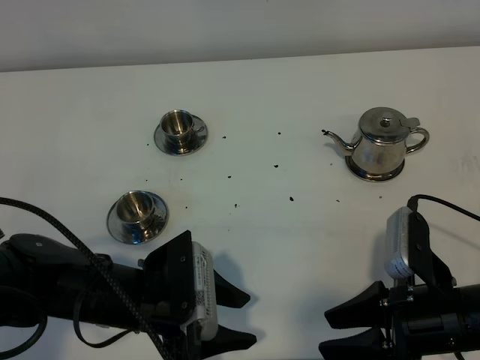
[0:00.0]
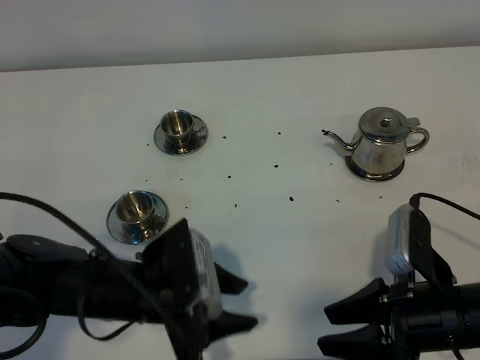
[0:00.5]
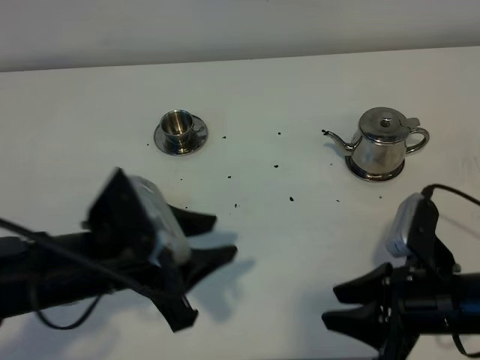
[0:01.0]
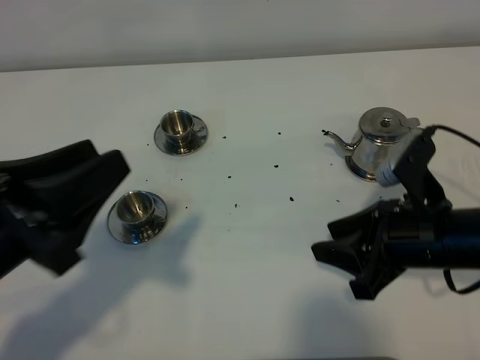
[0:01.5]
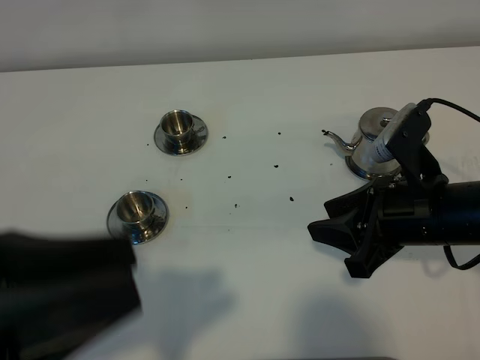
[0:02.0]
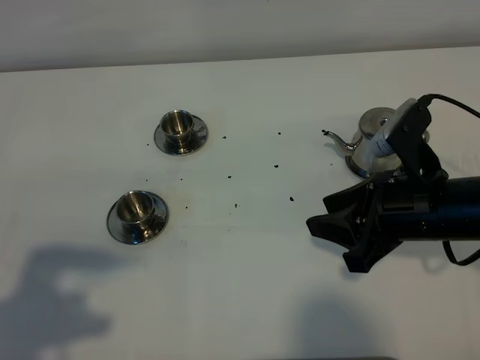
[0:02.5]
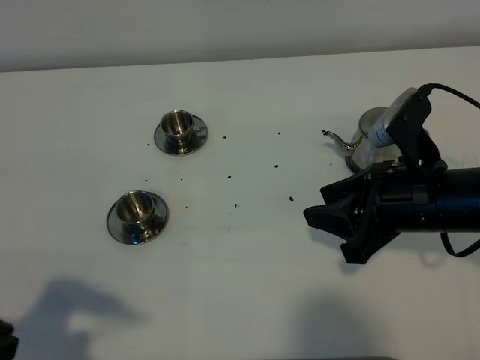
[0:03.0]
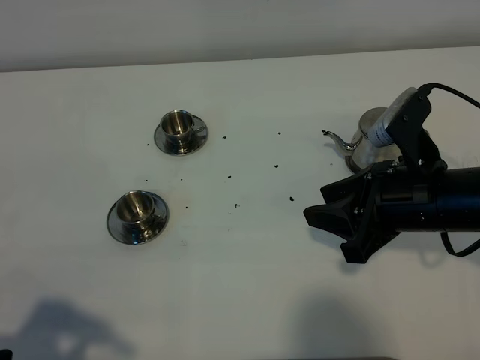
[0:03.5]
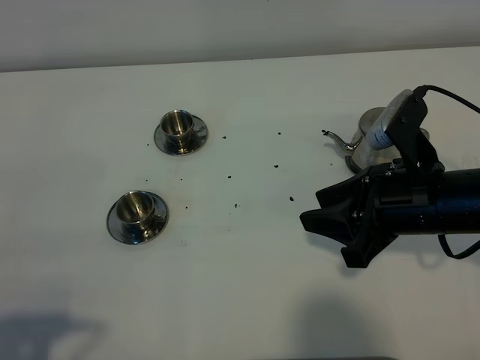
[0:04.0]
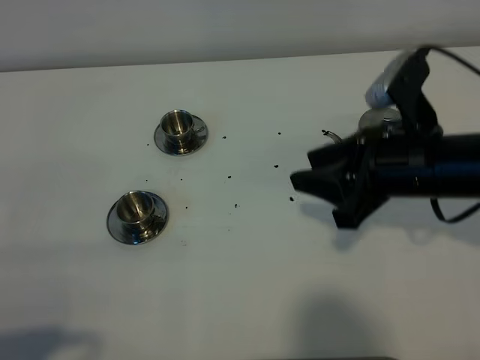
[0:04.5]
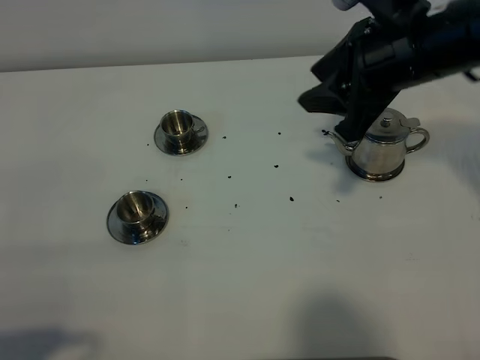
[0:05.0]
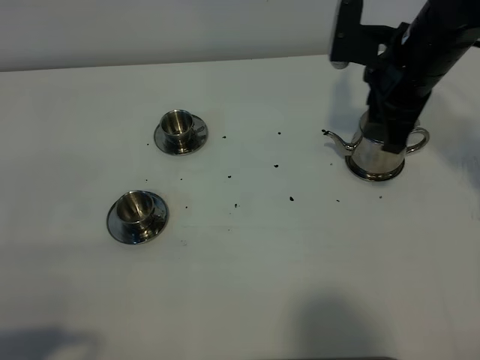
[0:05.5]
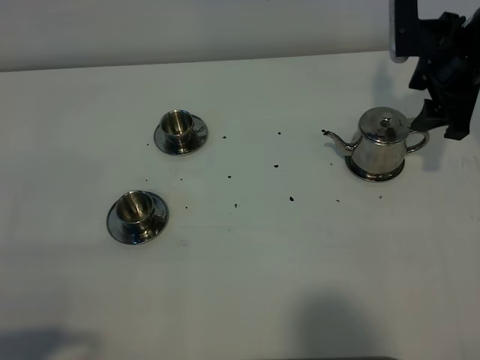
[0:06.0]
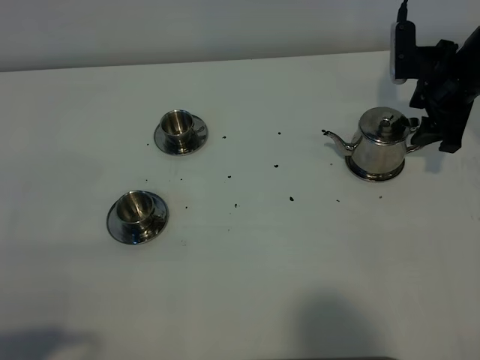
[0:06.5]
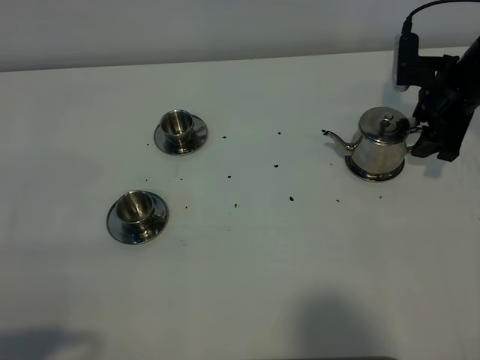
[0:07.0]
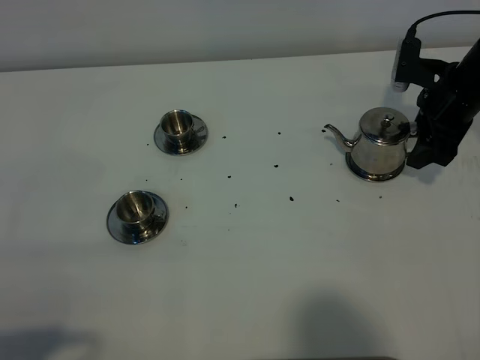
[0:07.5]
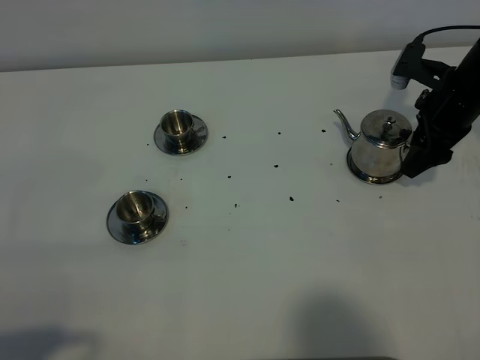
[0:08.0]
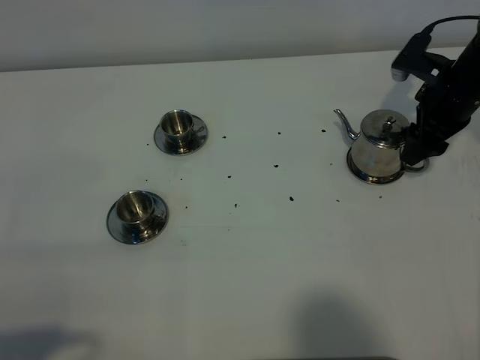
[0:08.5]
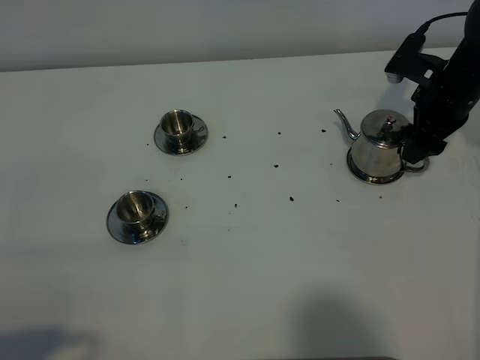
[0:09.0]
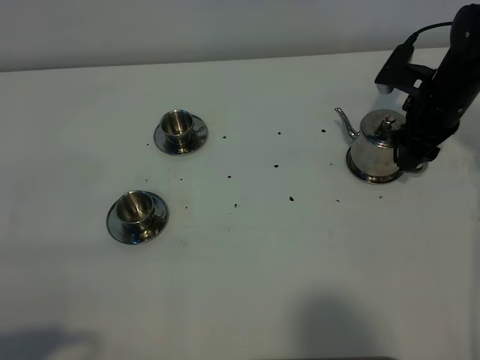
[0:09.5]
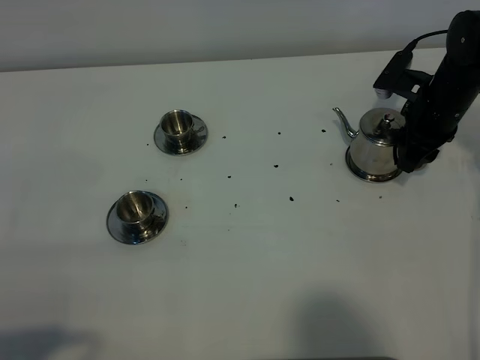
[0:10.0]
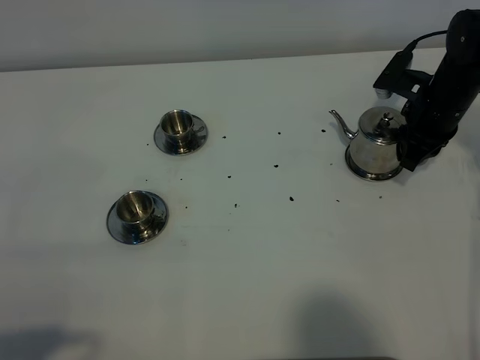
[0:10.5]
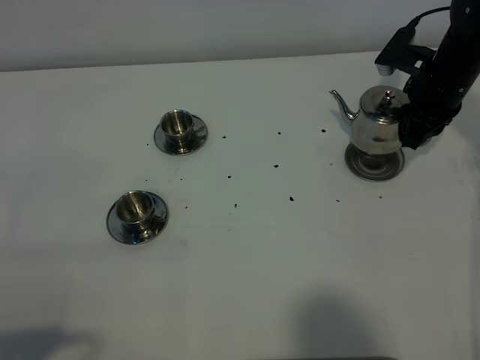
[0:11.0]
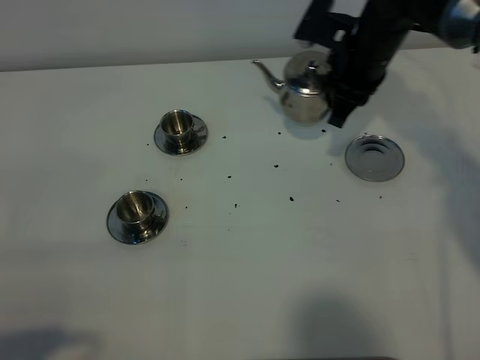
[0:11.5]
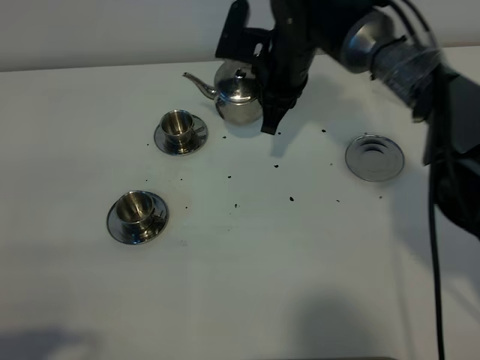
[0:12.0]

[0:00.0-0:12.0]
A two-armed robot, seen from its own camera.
Task of the whole recording: grasp the stainless steel teapot and pour the tea into the two stainless steel teacups one by one, put the stainless steel teapot back in its original place.
Step, 0:00.0 to 0:10.5: Pick up the teapot with the right gripper.
0:00.0 to 0:02.0: The right gripper goes approximately 10 cm forward and upward. Meanwhile the left gripper heads upward and backward, covering about 25 cm.
0:02.0 to 0:04.0: The left gripper shifts some 15 cm to the left, downward and backward.
0:04.0 to 0:06.0: The right gripper travels forward and to the right by about 20 cm, and opens.
0:06.0 to 0:08.0: The right gripper shifts roughly 5 cm downward.
0:08.0 to 0:10.0: The right gripper closes up.
0:10.0 to 0:12.0: The right gripper moves to the left, some 20 cm, and closes.

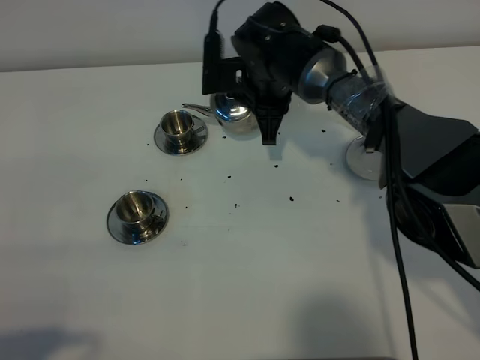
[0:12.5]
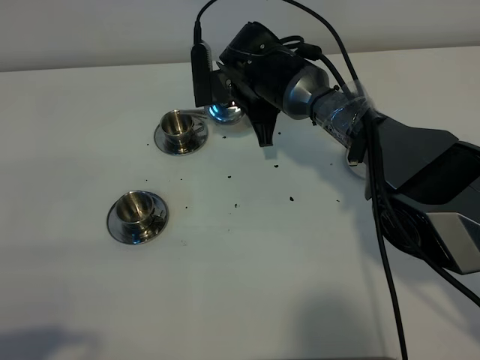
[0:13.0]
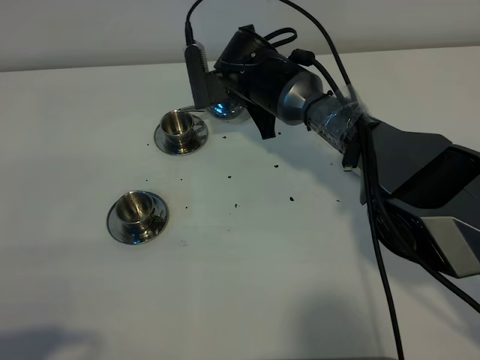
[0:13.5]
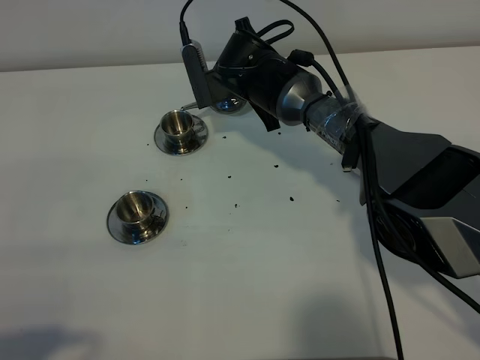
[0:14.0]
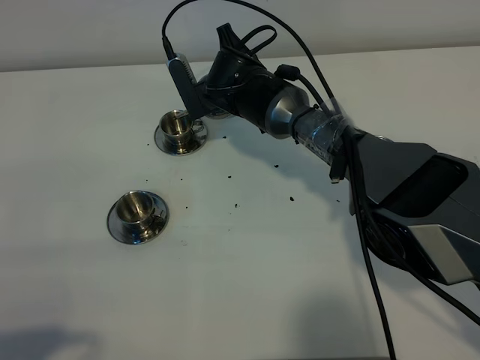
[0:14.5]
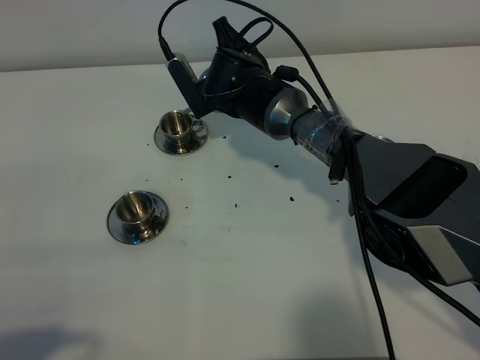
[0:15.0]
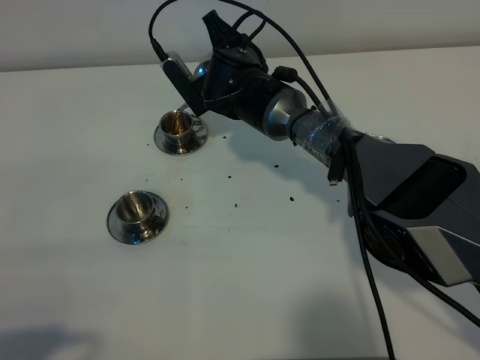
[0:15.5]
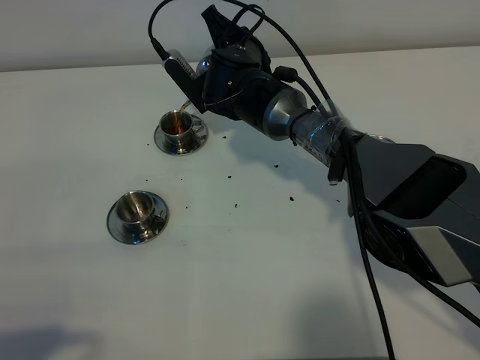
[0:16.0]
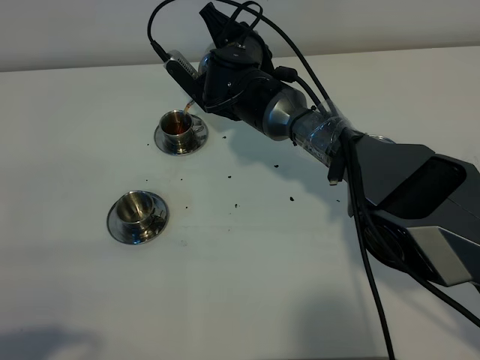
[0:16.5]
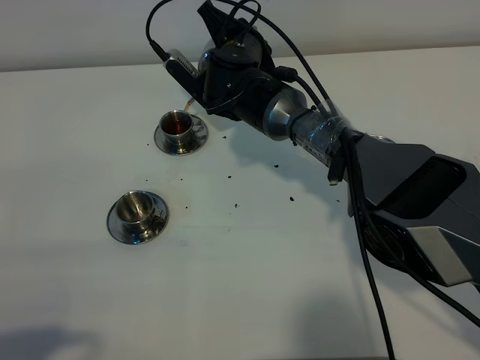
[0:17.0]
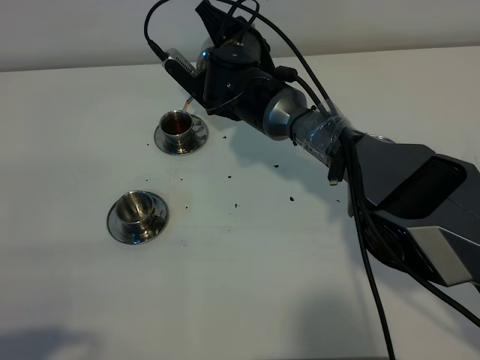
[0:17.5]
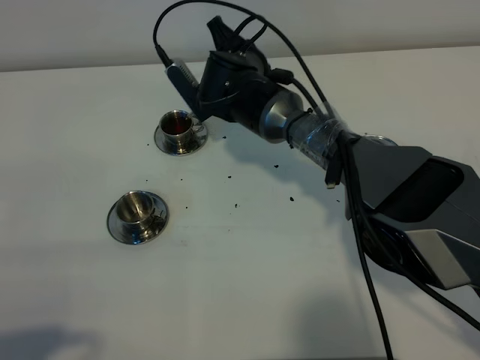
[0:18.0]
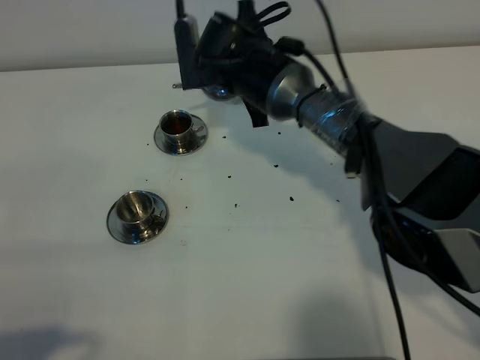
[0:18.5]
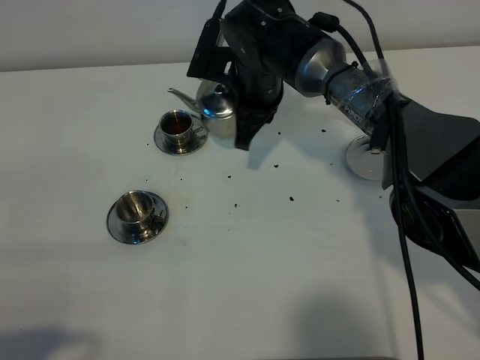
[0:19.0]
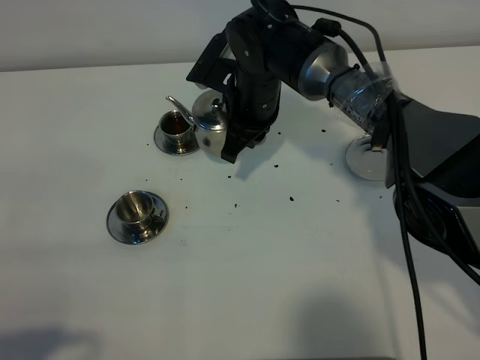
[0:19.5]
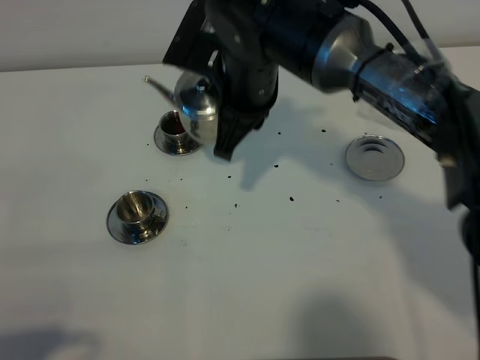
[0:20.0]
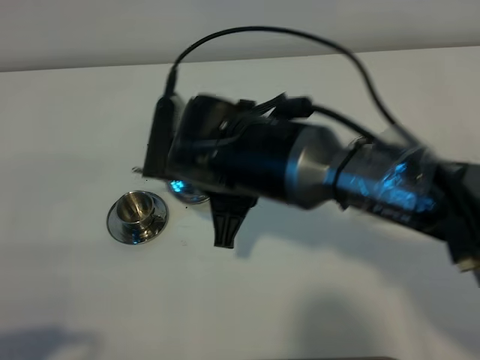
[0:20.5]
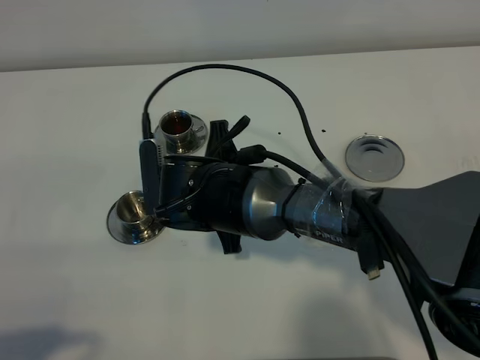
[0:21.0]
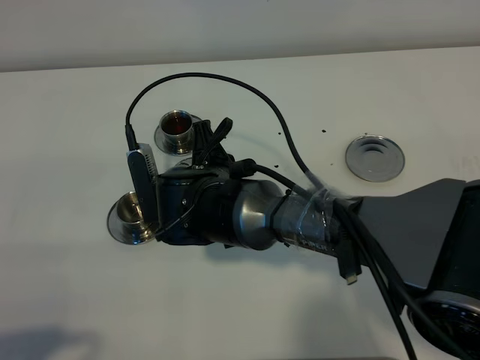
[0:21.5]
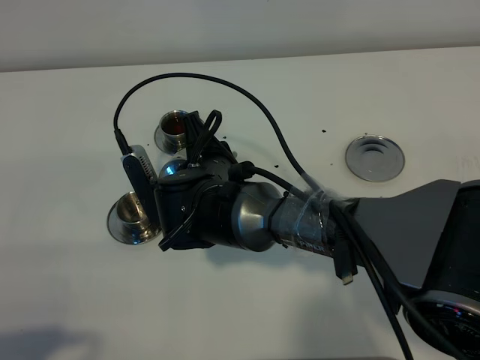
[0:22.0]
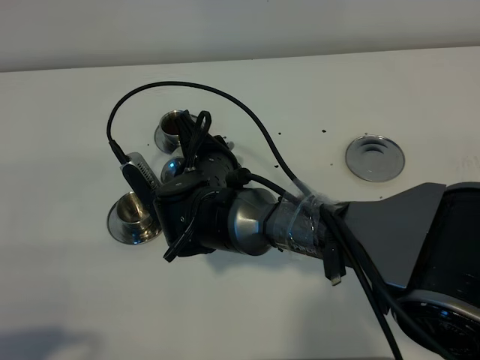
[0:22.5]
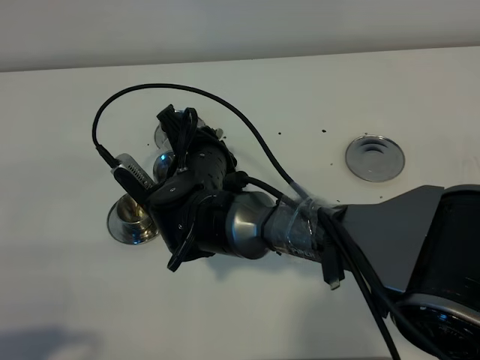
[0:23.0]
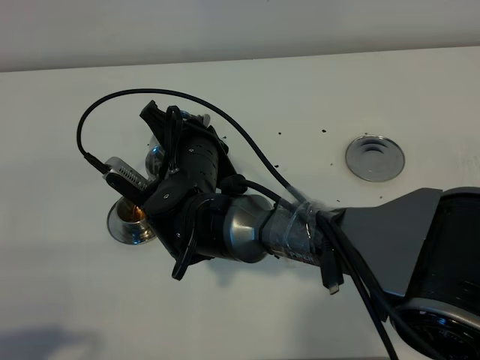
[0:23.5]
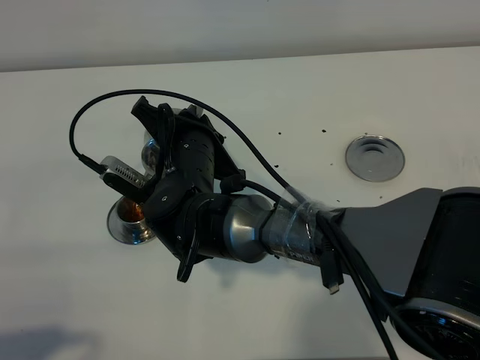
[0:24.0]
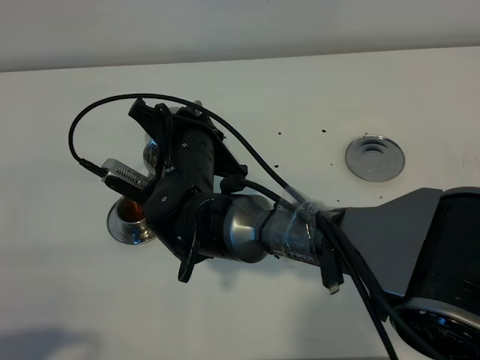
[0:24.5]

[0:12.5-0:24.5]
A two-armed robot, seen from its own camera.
Task of the whole recording: grasp the stainless steel teapot and pour the tea into the two stainless steel teacups one by one, put the stainless steel teapot back in its original place.
0:16.5 to 0:18.5: The right gripper changes place by some 5 cm.
0:18.5 to 0:20.5: The right gripper is displaced backward by approximately 15 cm.
0:20.5 to 0:22.5: The right gripper is displaced downward by about 10 cm.

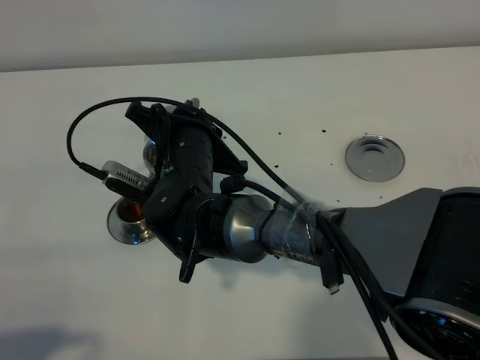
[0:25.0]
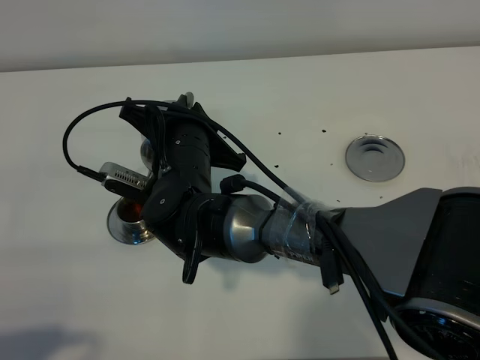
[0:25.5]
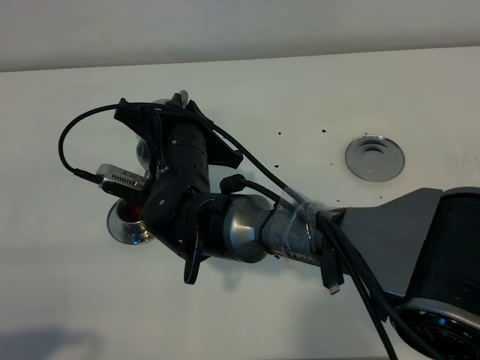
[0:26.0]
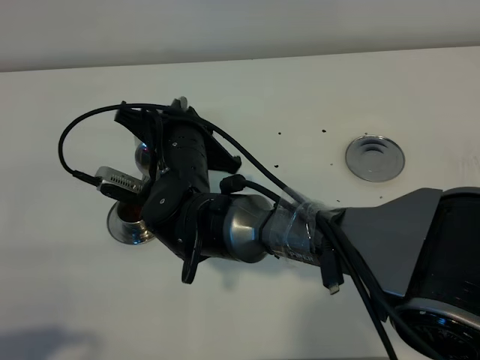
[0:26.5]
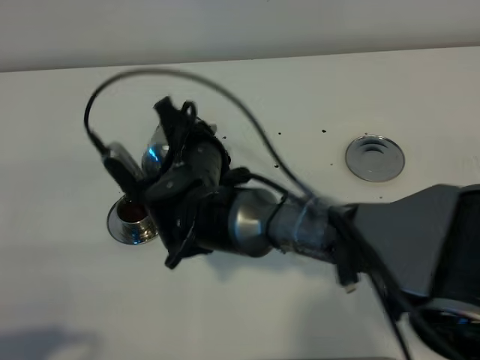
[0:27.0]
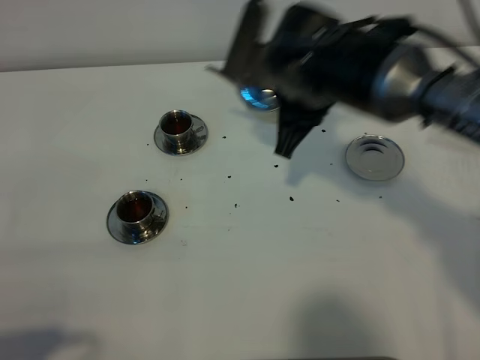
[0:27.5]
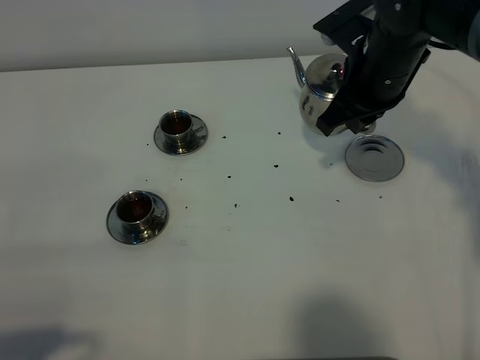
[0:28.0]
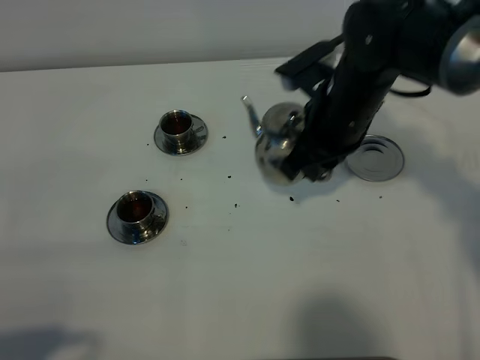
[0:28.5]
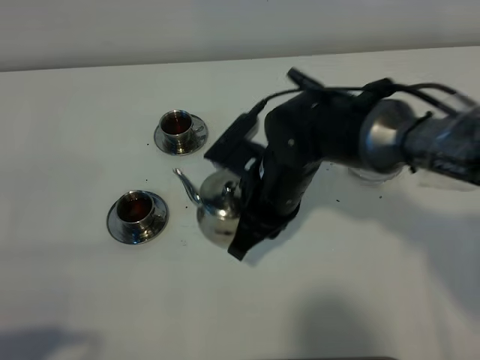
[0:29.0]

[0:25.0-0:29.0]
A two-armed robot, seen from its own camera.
Task of the whole recording: grasp the stainless steel teapot and pour the tea into the two stainless steel teacups one by one, put the stainless steel teapot back in its original place.
Step, 0:25.0 to 0:27.0: Pour tea into the teacup with the right gripper.
0:27.0 to 0:29.0: The right gripper is displaced to the right by approximately 10 cm.
